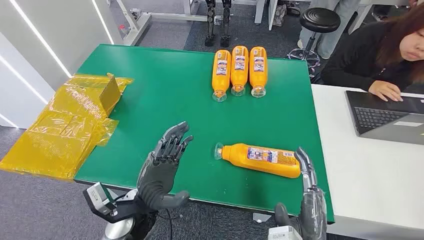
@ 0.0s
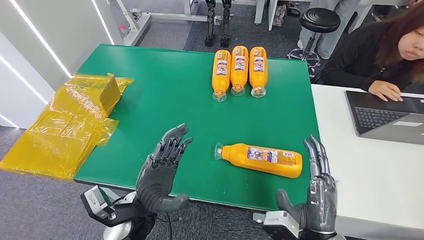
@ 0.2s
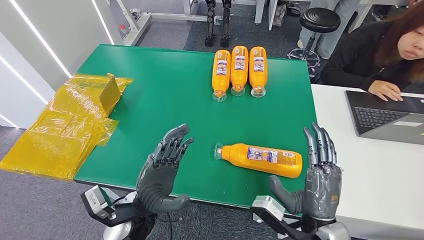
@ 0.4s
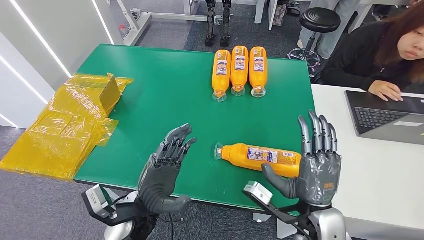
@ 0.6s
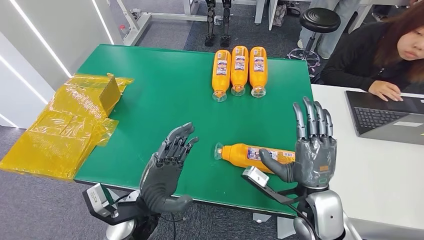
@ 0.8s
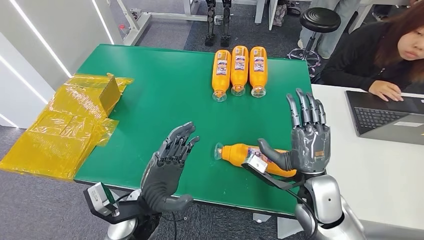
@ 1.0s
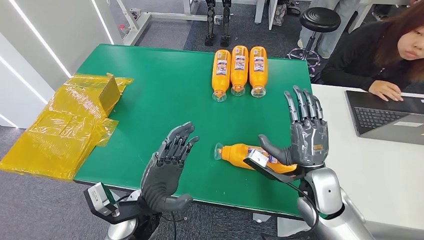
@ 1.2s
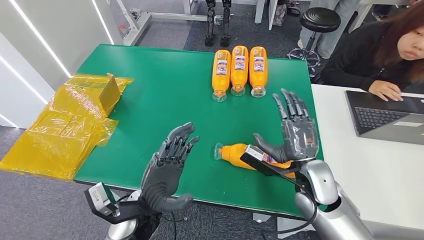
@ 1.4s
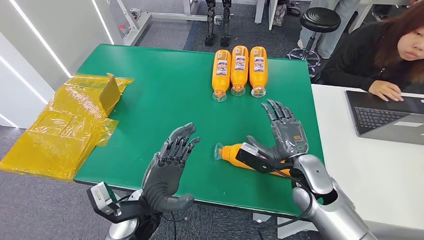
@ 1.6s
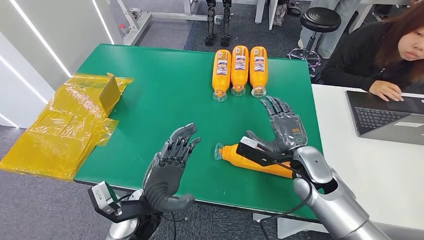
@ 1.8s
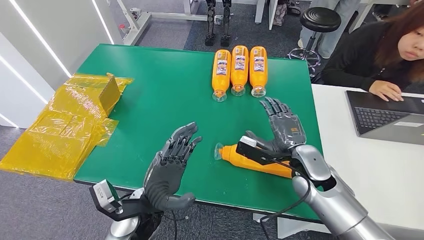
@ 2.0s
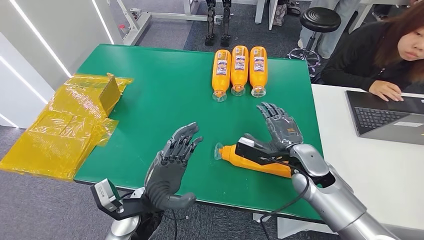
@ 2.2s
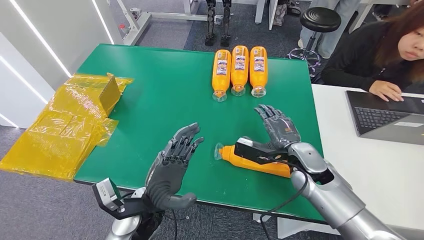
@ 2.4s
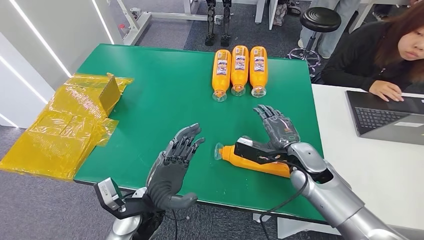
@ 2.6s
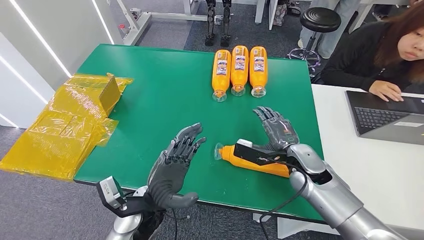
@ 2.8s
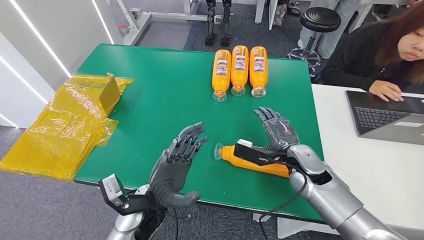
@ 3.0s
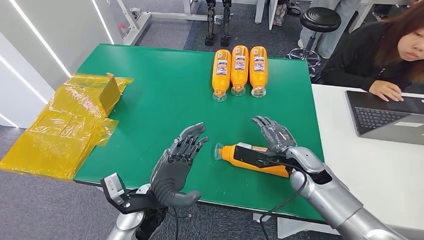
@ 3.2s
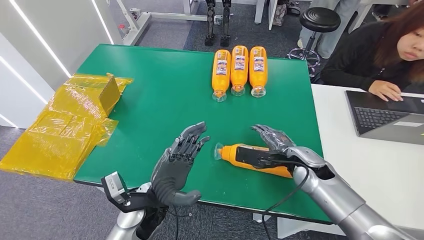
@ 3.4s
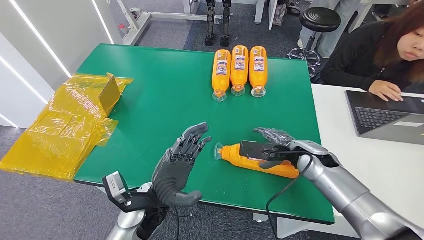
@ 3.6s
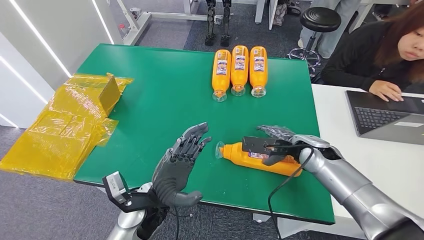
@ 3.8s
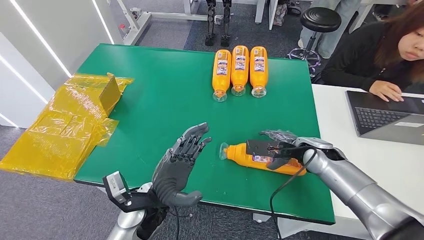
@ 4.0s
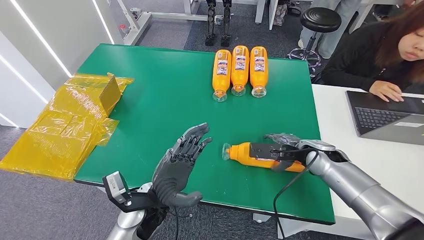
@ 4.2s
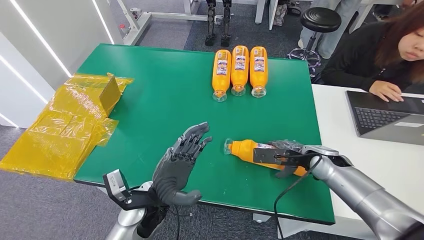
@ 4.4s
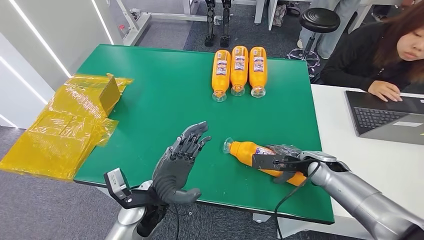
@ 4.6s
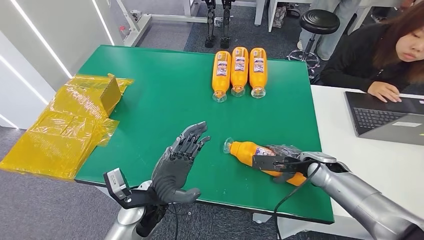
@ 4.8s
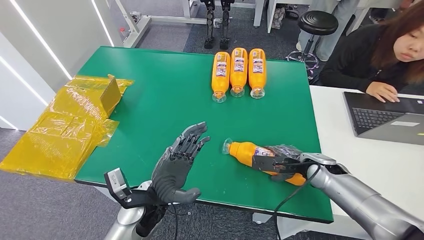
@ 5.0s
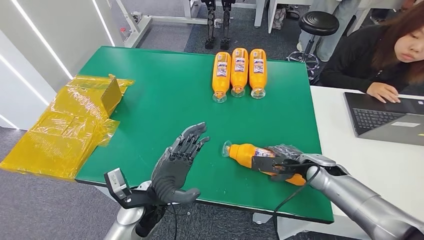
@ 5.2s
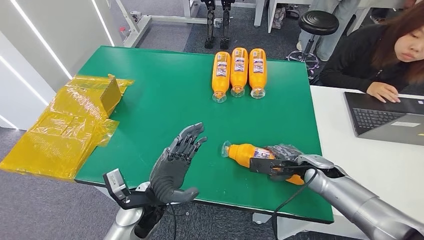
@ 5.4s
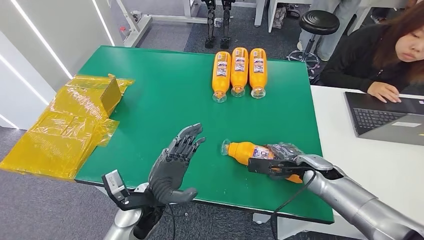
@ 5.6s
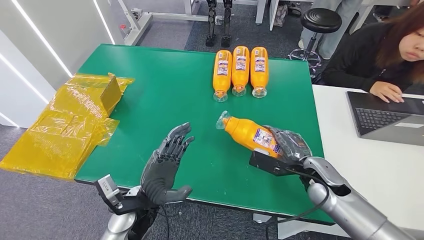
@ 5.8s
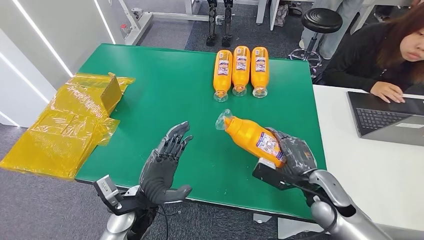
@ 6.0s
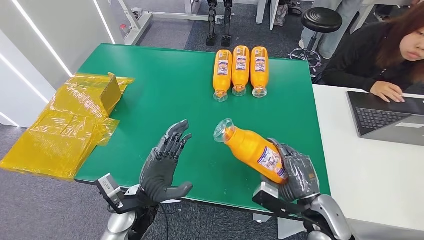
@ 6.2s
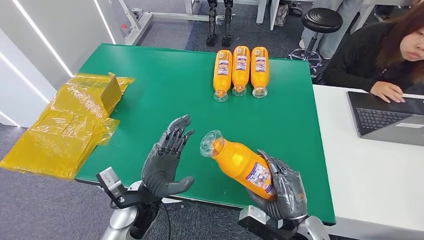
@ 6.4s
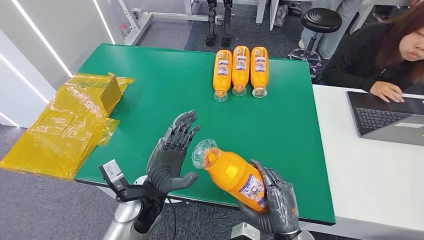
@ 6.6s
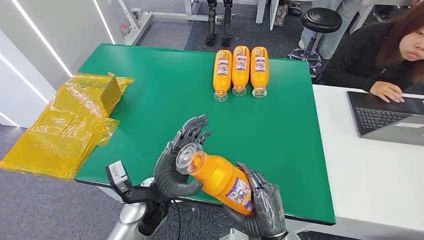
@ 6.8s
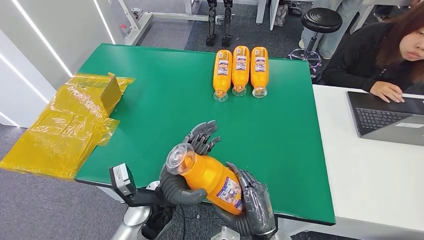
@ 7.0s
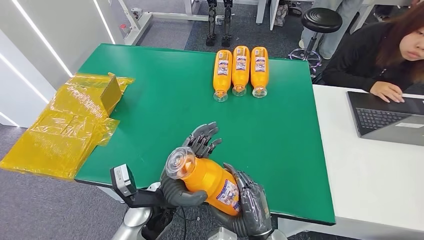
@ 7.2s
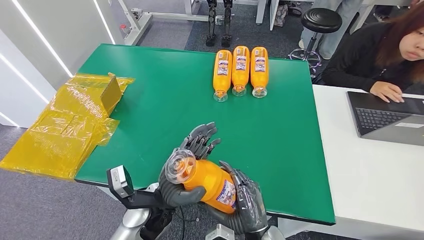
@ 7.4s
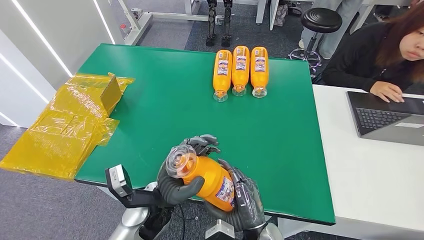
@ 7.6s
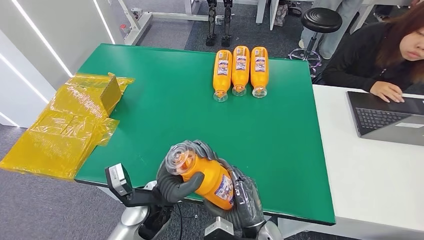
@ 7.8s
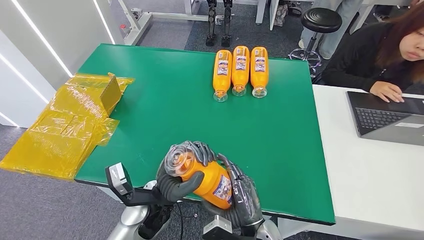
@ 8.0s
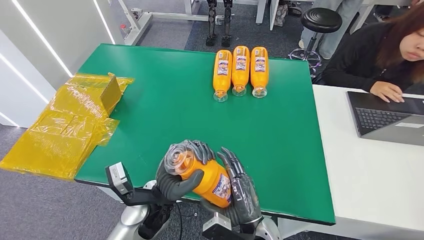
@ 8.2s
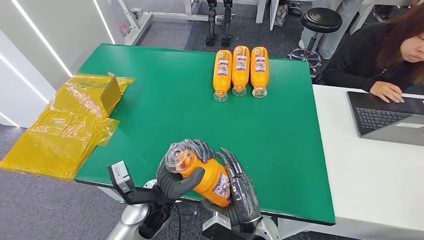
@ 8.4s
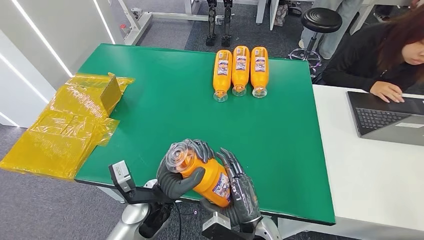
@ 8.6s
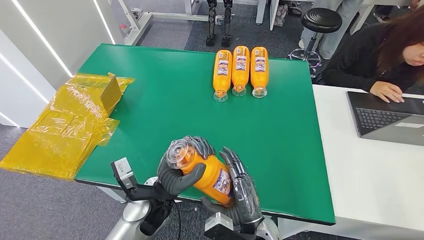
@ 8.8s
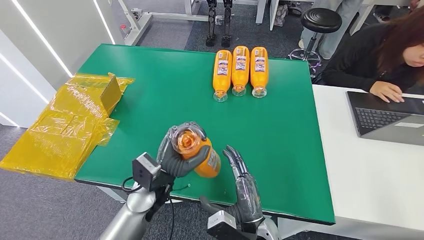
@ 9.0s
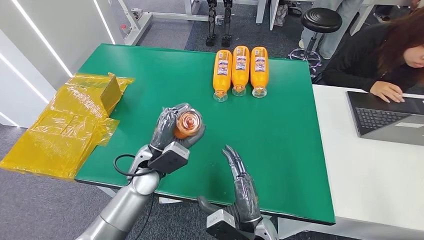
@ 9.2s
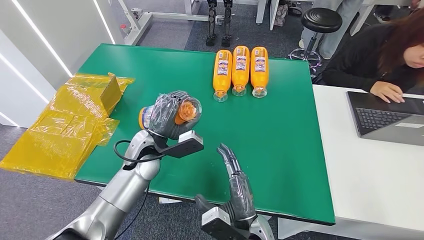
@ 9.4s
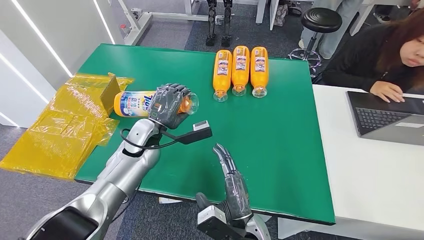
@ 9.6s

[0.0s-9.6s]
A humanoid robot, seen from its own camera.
Step, 0.0s to 5.8s: Pick up the bottle from the table.
3.2s to 4.8s: The right hand is displaced to the right by some 5 cm.
6.4s to 8.0s: The right hand goes about 10 cm to the left.
8.0s to 9.6s: The left hand heads forward and to the left, covering some 15 cm.

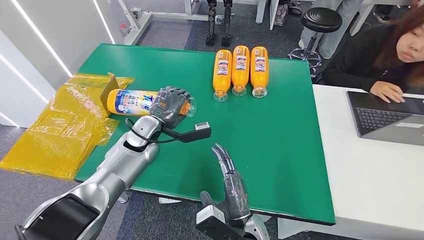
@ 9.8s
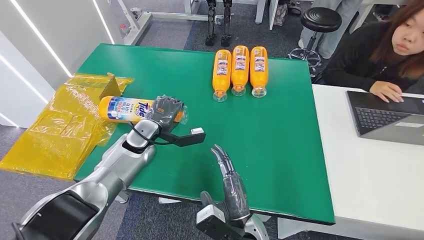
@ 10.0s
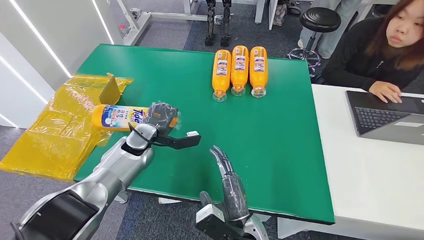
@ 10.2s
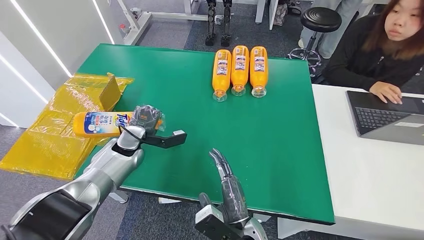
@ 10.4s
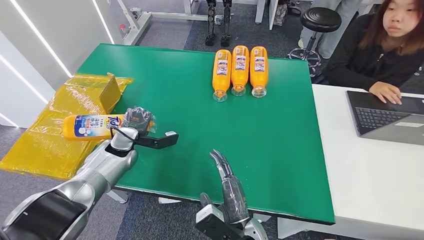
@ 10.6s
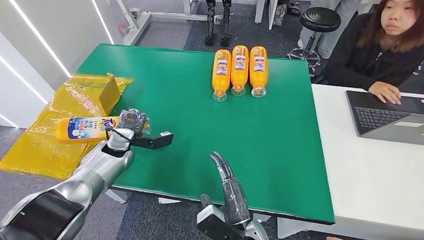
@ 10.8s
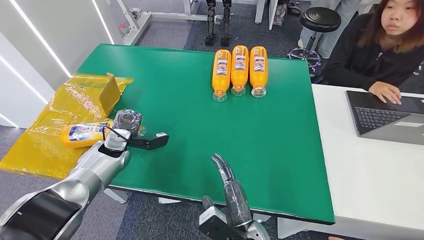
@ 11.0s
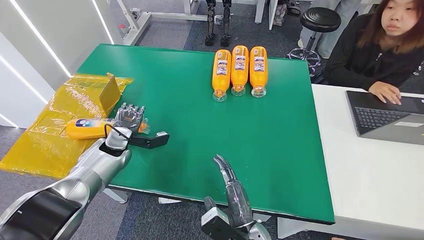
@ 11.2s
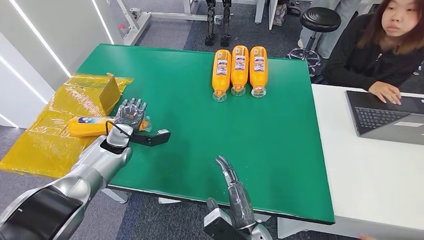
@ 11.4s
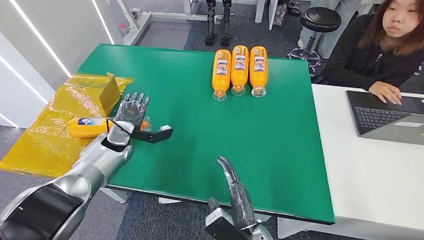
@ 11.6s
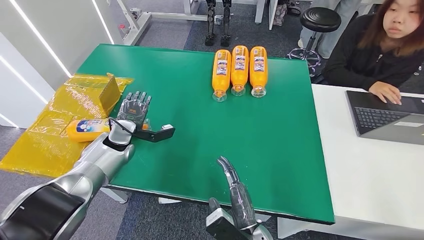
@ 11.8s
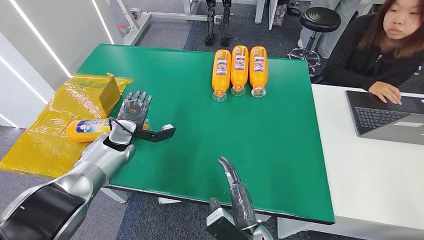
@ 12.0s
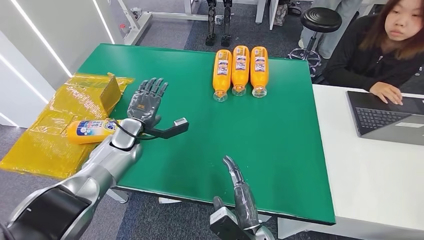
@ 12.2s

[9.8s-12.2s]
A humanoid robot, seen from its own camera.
Step, 9.8s to 12.2s: Turn the bottle to the front side.
9.8s to 11.0s: The left hand travels to the left and downward by roughly 15 cm.
11.0s to 12.2s: The left hand goes some 5 cm to the right.

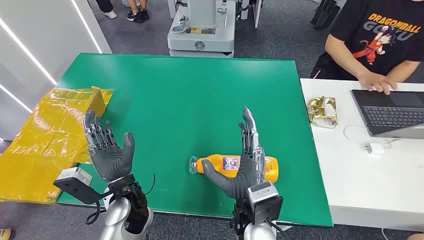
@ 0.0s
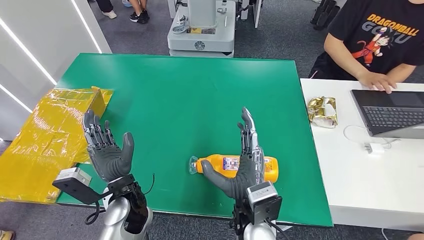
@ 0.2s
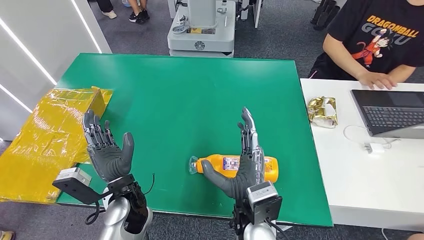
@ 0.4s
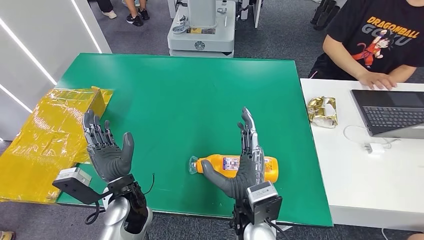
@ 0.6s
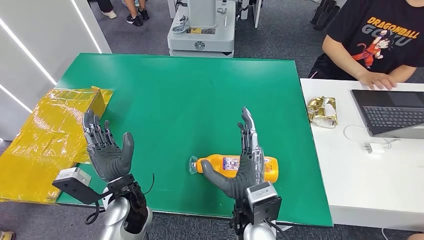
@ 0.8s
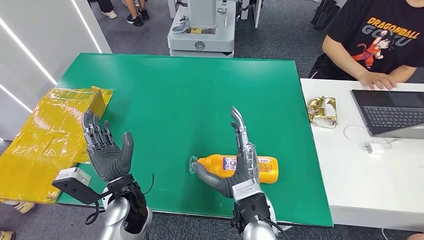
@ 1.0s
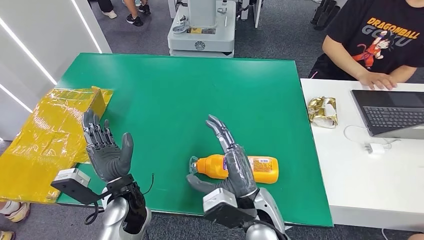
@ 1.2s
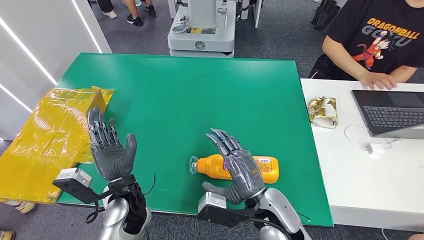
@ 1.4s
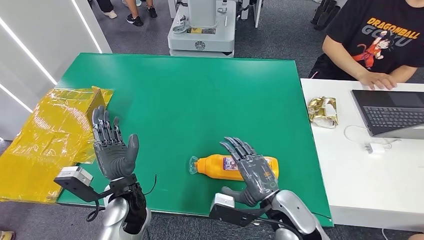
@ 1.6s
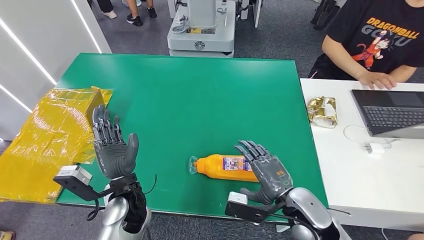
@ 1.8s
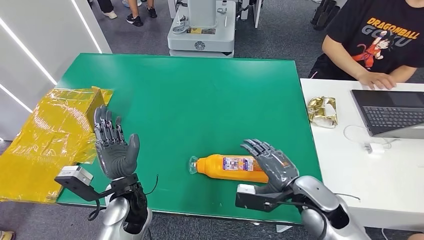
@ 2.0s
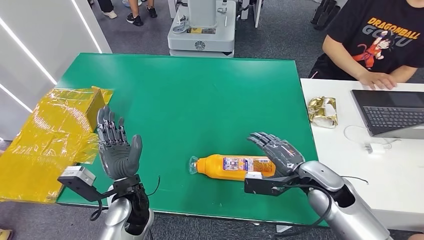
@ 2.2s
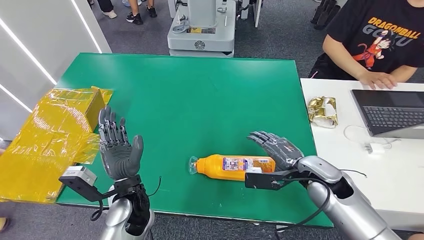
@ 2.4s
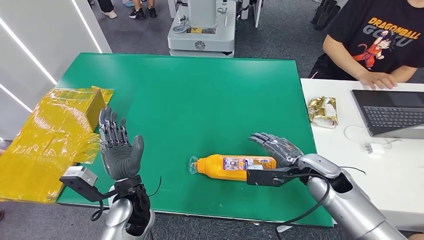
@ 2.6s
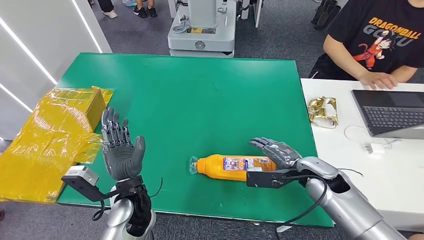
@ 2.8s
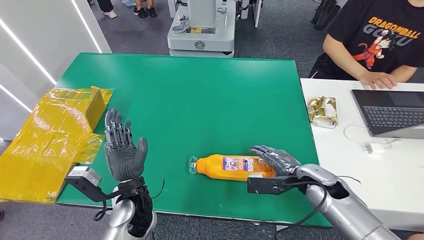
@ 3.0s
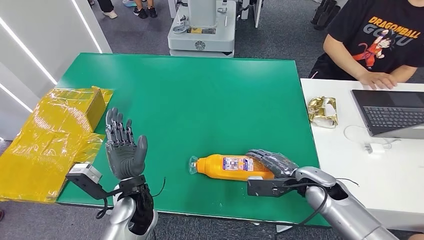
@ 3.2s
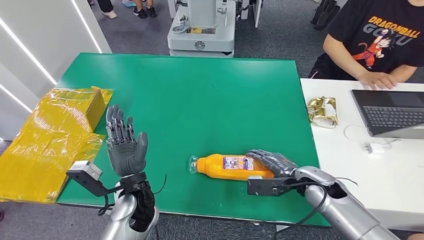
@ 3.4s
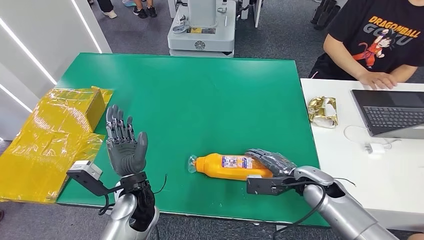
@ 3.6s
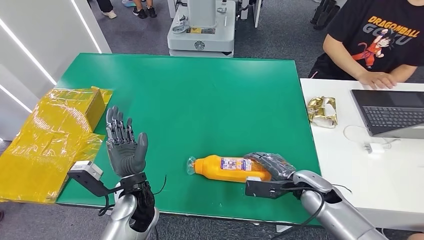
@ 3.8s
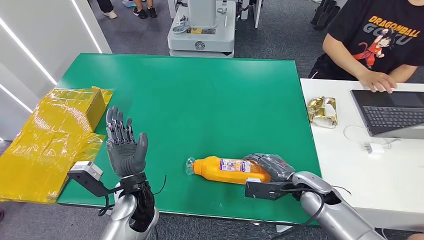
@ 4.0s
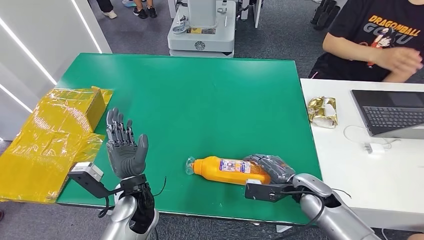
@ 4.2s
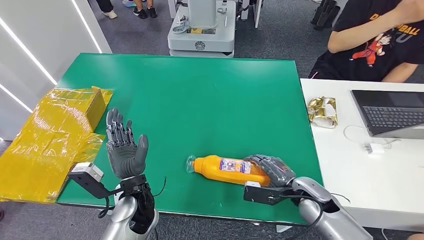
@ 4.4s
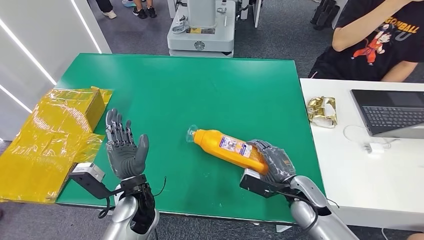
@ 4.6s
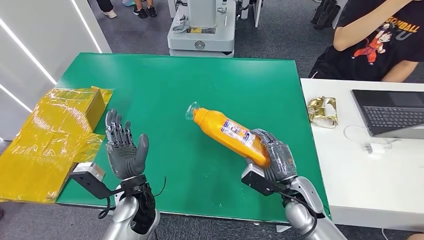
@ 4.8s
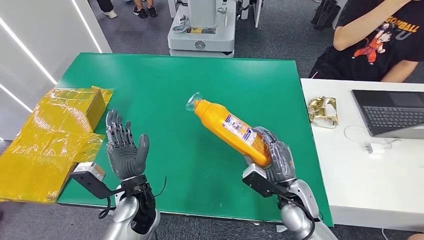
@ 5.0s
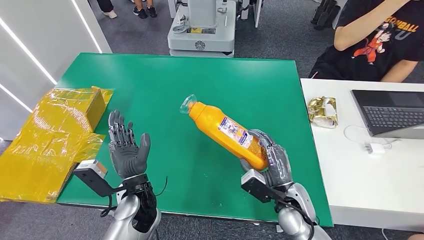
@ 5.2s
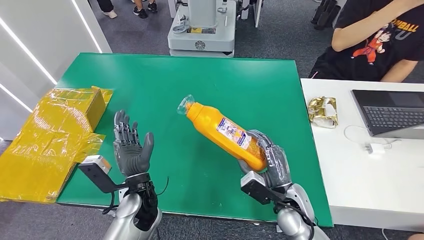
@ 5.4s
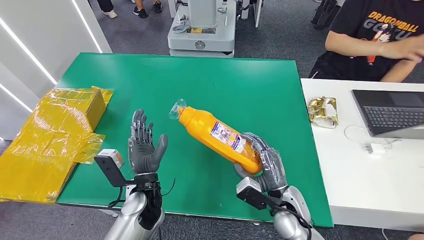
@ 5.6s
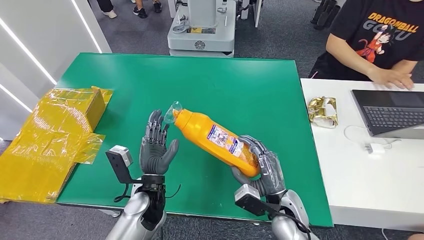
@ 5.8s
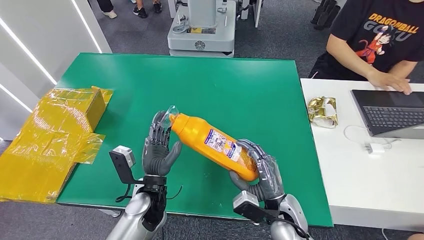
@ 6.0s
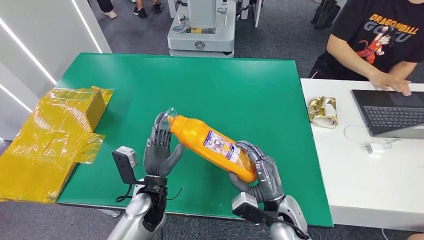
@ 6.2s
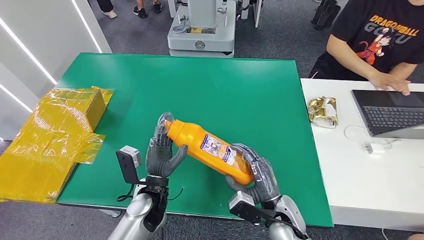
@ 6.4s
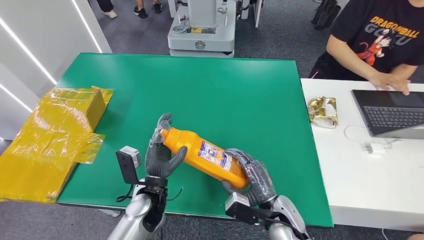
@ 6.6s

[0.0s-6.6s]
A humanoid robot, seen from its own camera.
Step, 0.0s to 5.0s: Pick up the bottle from the table.
1.6s to 3.2s: The right hand moves to the right and forward, some 15 cm.
3.2s to 5.0s: The right hand goes about 5 cm to the left.
